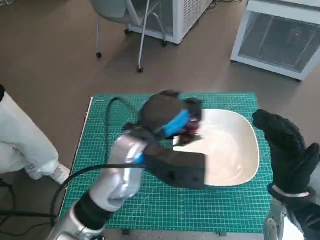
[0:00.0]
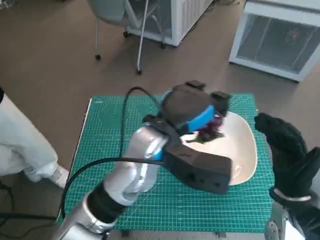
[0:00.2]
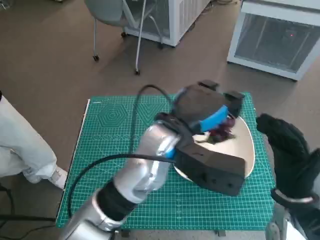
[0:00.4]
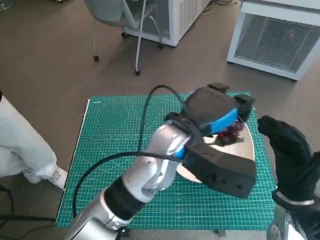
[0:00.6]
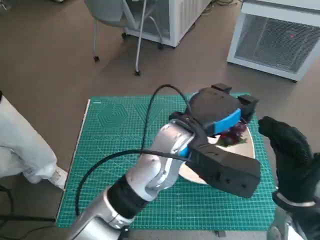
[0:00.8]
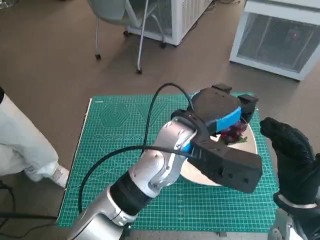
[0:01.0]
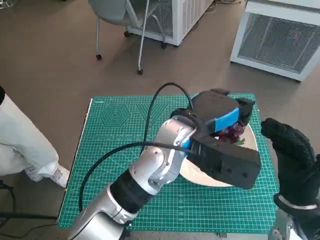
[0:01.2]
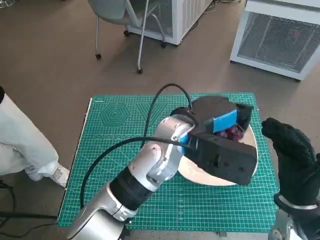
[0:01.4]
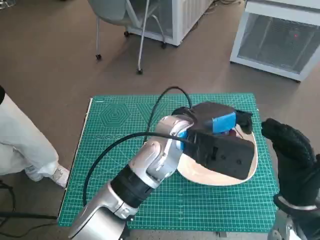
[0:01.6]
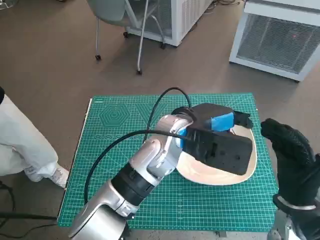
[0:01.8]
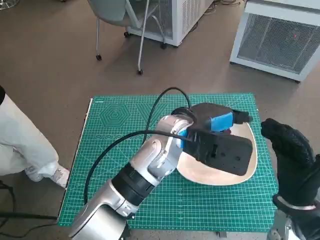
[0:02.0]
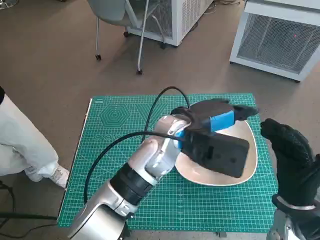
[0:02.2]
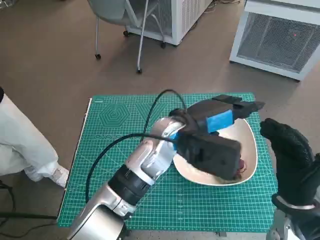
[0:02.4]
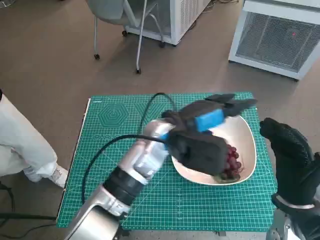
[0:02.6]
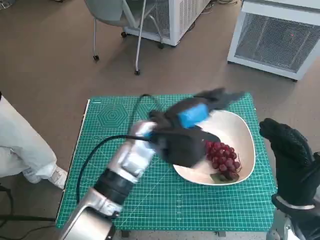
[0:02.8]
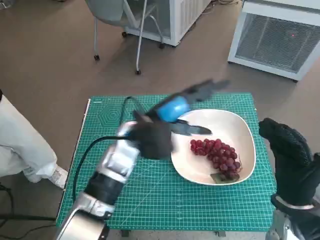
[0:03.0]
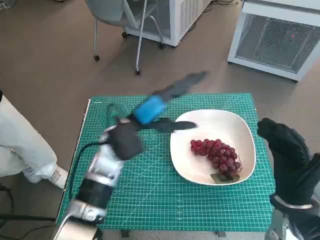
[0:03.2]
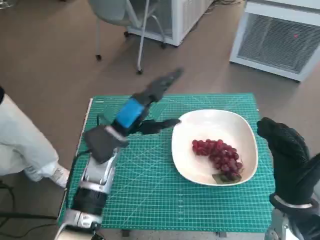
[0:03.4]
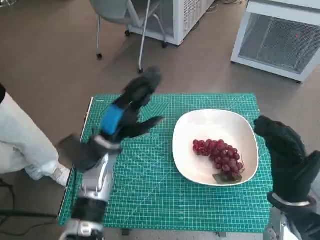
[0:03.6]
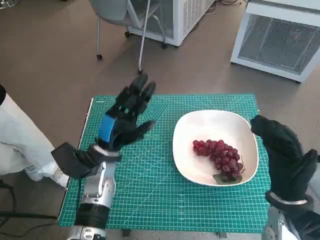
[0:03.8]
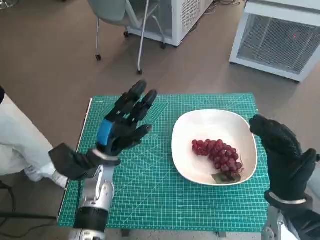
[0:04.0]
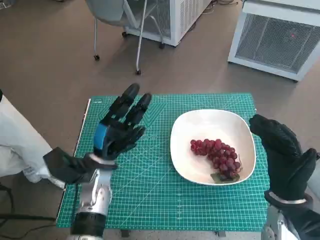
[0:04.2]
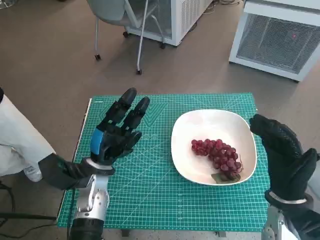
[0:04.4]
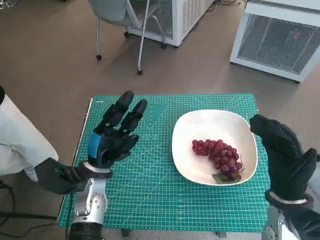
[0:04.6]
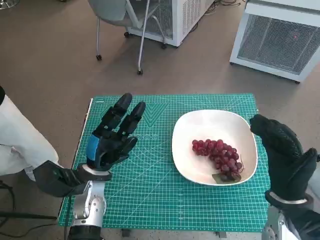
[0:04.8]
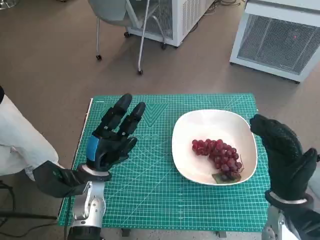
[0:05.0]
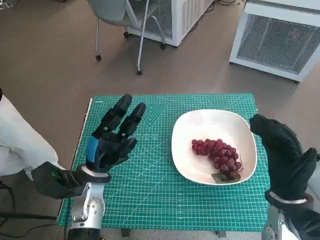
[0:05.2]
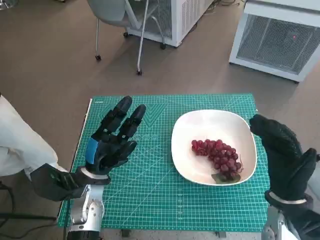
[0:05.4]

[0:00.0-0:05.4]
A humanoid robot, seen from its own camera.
Task of the whole recording: Pick up the grapes and put them on the plate.
Step, 0:00.0 to 0:02.2: Place the grapes in the plate with left hand.
0:00.0 to 0:01.4: The left hand moves to the right, approximately 5 cm.
0:01.4 to 0:02.8: The left hand heads to the left, covering about 5 cm.
0:02.8 to 0:04.0: The left hand is displaced to the left and downward by approximately 15 cm.
0:04.0 to 0:05.4: The hands move only a little.

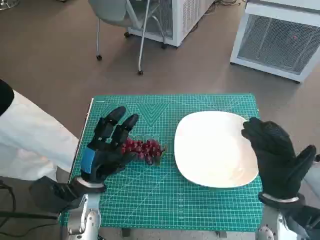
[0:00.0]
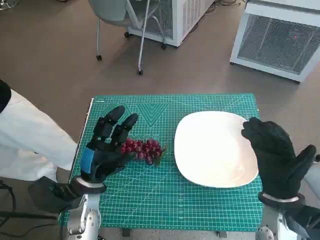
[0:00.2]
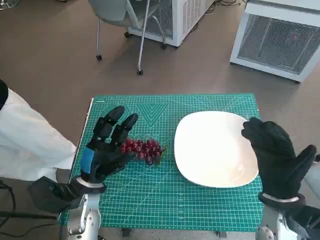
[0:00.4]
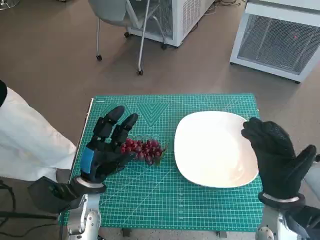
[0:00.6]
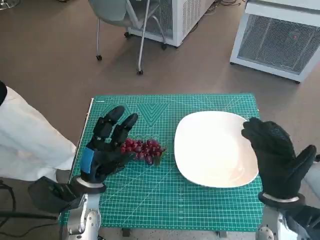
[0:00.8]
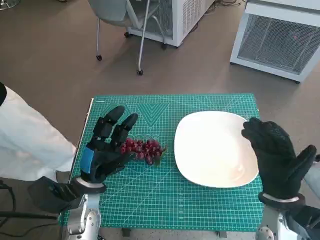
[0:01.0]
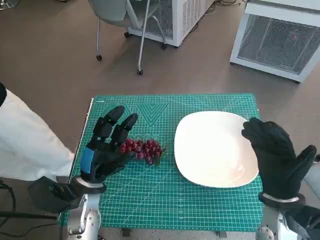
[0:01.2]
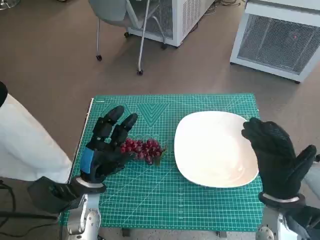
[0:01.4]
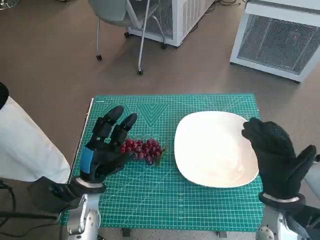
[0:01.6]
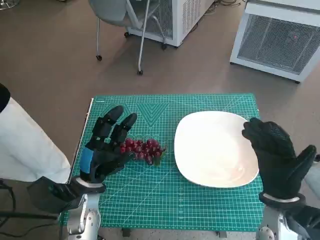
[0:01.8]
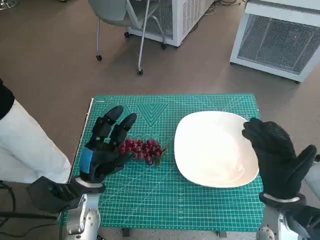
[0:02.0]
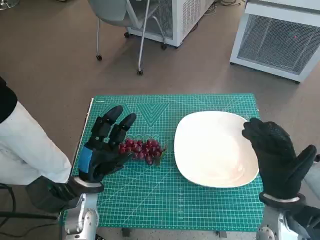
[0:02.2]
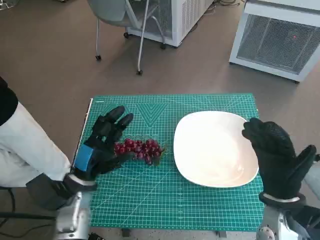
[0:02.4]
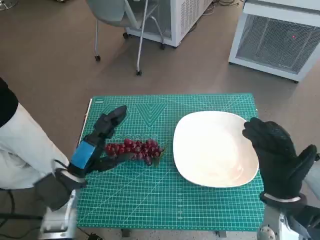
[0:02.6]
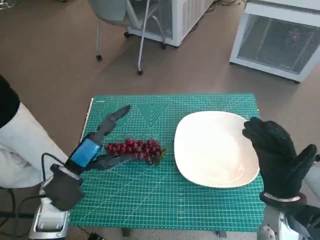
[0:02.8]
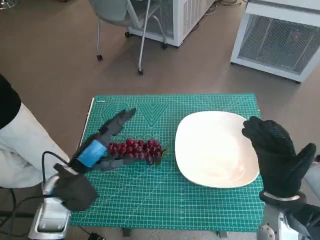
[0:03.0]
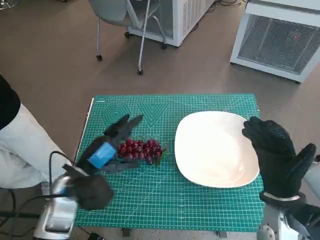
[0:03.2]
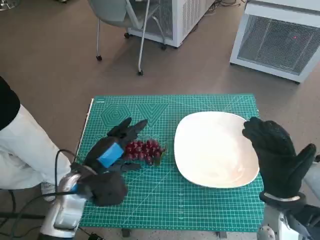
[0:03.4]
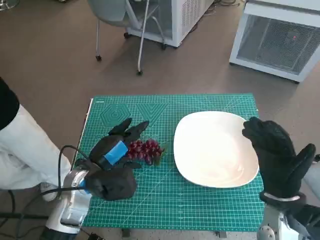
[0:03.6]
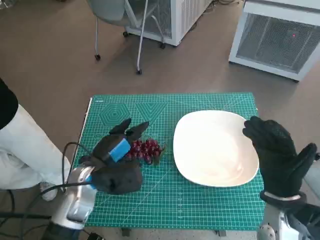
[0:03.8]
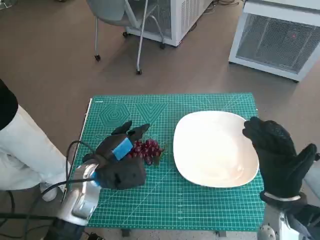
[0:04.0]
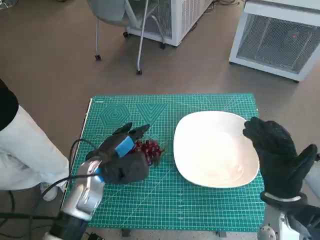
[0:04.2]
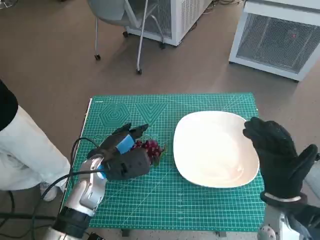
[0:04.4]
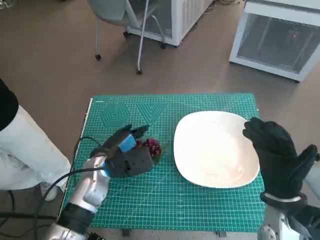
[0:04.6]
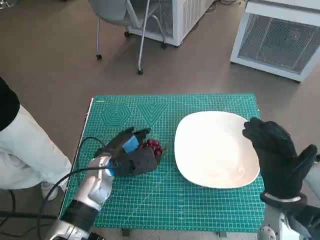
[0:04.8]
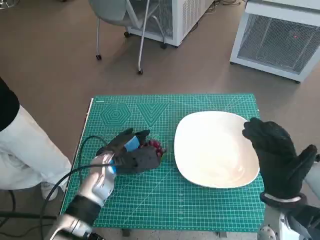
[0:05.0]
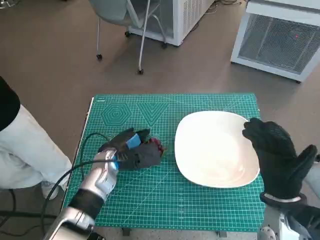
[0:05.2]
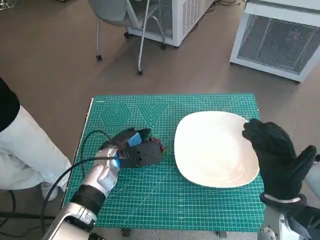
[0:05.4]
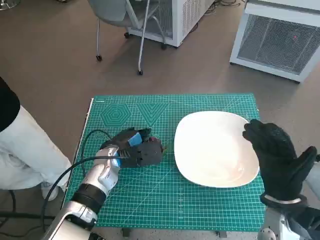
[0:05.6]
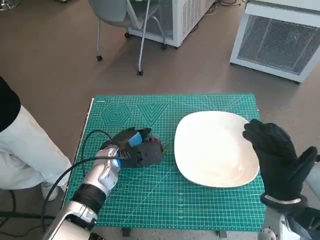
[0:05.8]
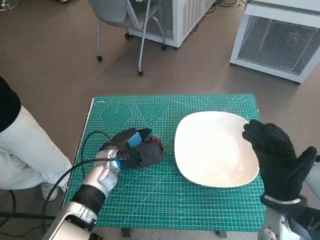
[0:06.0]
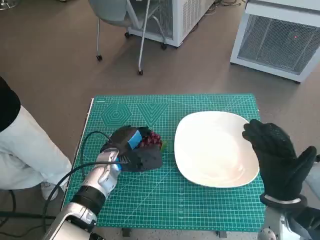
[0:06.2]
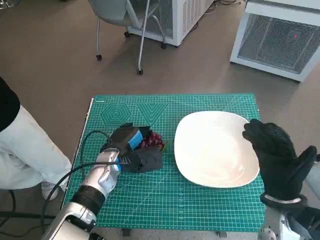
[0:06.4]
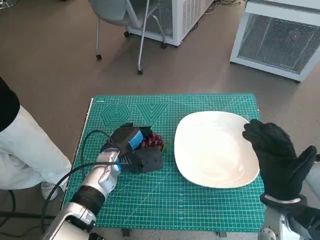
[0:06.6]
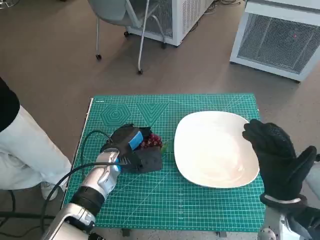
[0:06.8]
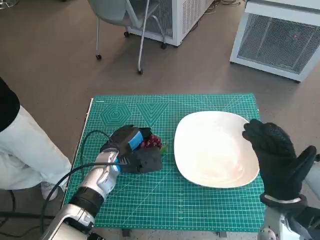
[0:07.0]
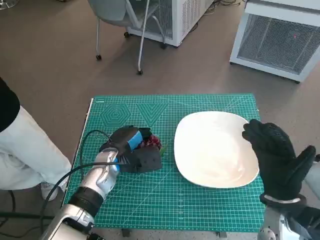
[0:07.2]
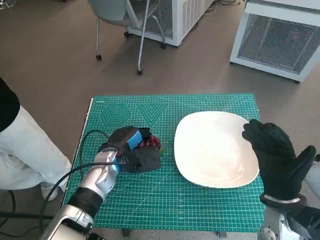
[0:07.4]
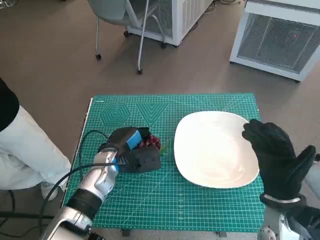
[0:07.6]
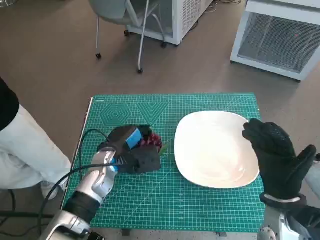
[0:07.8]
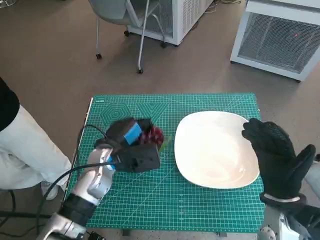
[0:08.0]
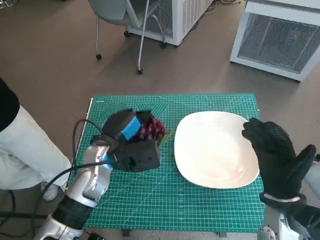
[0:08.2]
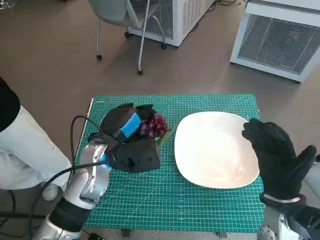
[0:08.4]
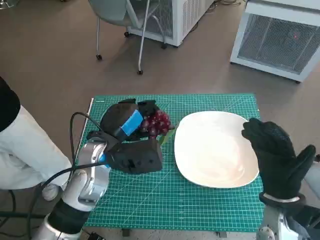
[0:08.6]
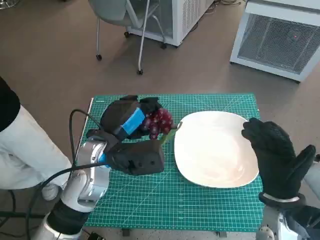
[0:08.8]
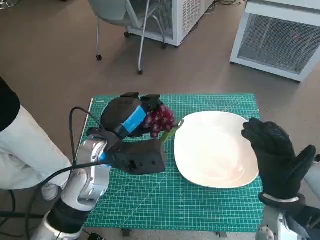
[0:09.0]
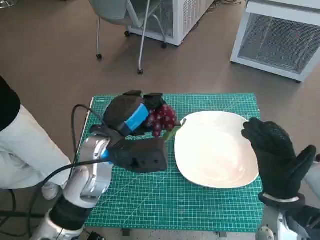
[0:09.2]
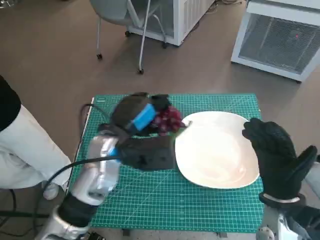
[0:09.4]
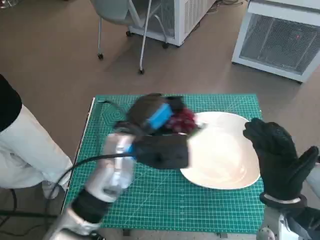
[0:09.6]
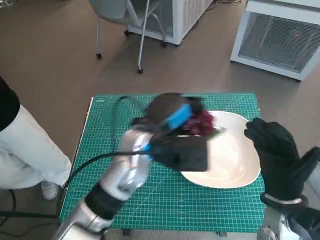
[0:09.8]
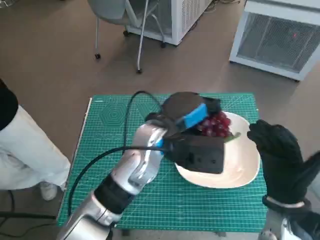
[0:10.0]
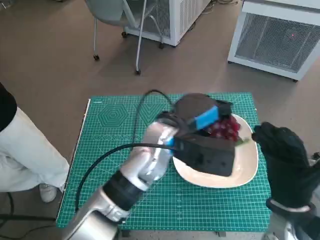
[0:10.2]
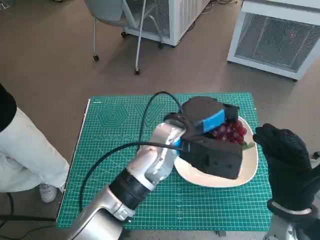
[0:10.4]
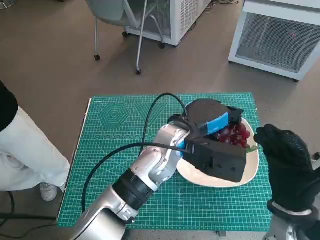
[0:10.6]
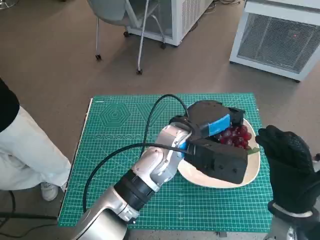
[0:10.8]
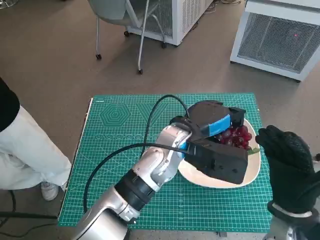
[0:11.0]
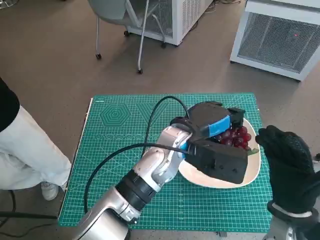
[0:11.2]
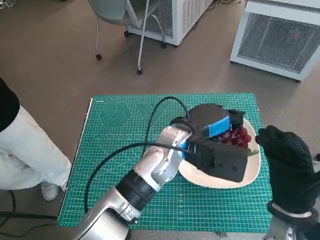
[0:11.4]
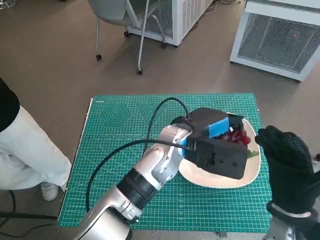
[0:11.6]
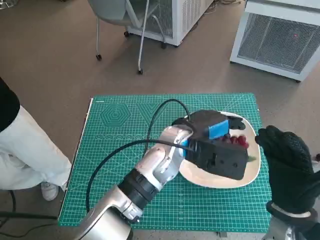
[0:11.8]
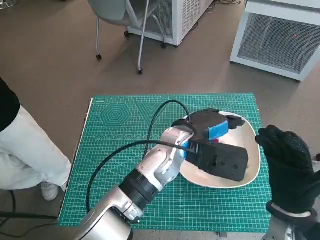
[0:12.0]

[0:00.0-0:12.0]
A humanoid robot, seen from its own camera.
Task of the whole recording: Pick up the grapes and put them on the plate.
Step, 0:00.0 to 0:07.4: Grasp the grapes with left hand.
0:01.6 to 0:03.0: The left hand travels upward by roughly 5 cm.
0:03.0 to 0:04.4: The left hand moves forward, about 5 cm.
0:04.4 to 0:07.6: The hands stay close to where they were, moving slightly.
0:07.6 to 0:09.0: The left hand travels upward by about 10 cm.
0:09.0 to 0:10.4: The left hand shifts about 10 cm to the right.
0:10.4 to 0:12.0: The hands make only small movements.

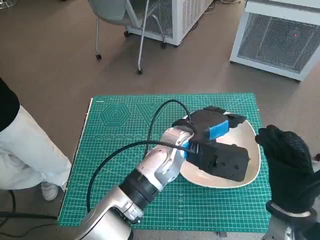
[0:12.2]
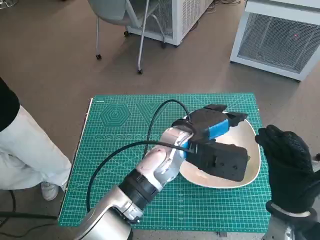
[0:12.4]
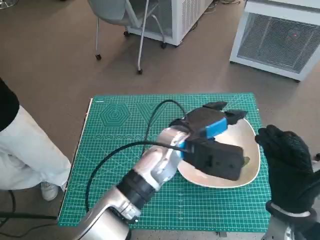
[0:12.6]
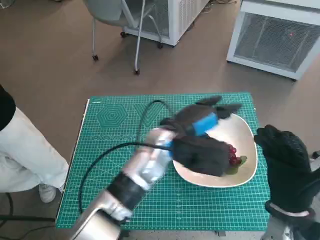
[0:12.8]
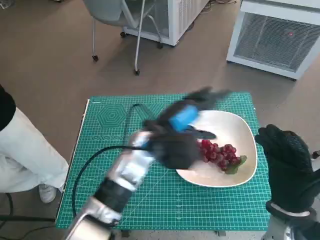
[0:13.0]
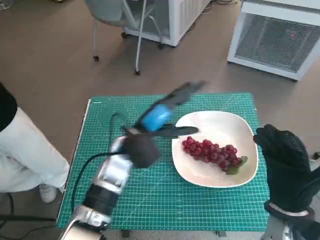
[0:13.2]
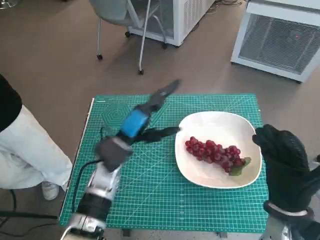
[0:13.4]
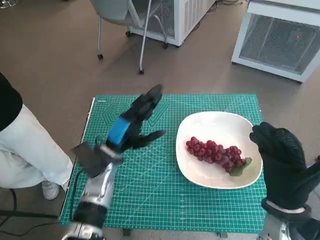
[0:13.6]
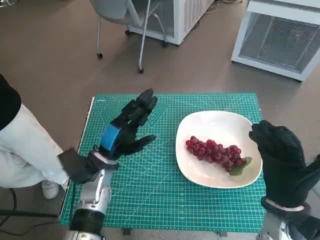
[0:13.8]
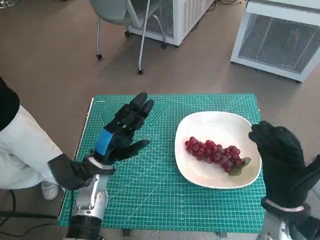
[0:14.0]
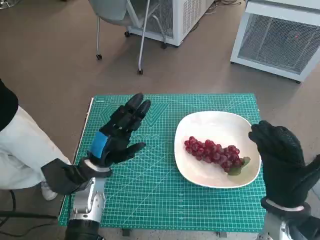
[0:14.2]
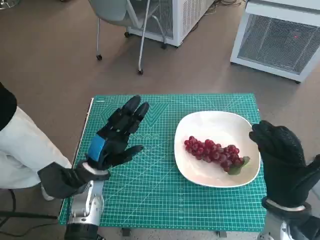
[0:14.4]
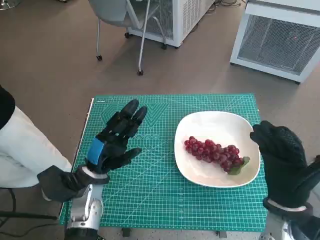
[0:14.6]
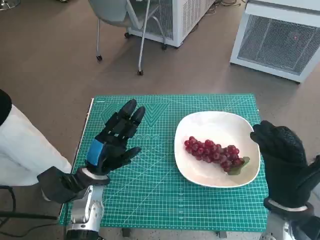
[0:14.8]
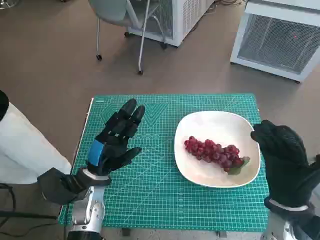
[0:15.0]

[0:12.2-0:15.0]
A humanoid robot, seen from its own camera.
Task of the whole recording: Pick up the grapes and put them on the plate.
0:12.2 to 0:13.6: The left hand shifts approximately 15 cm to the left and downward.
0:13.6 to 0:15.0: The left hand shifts by some 5 cm.
